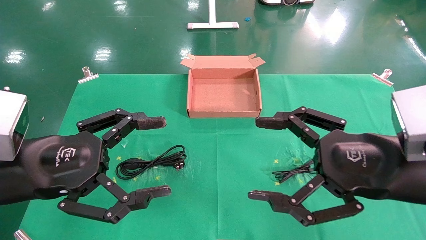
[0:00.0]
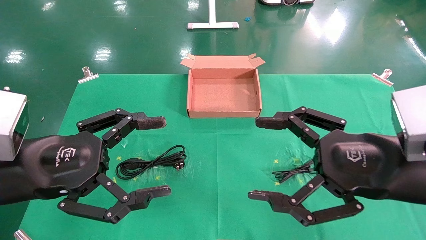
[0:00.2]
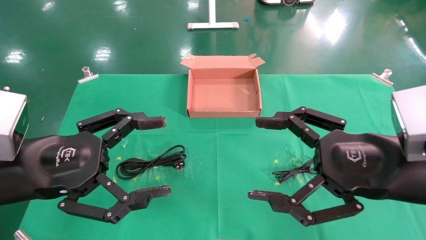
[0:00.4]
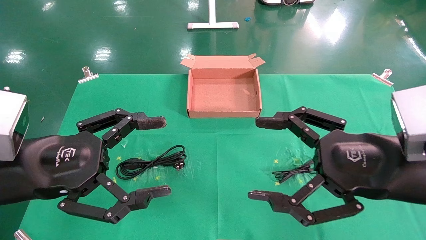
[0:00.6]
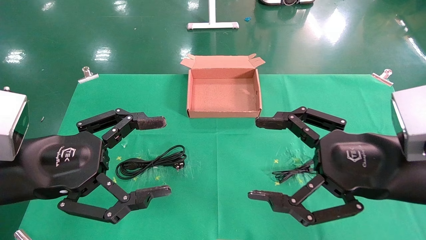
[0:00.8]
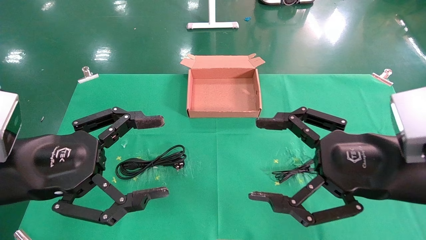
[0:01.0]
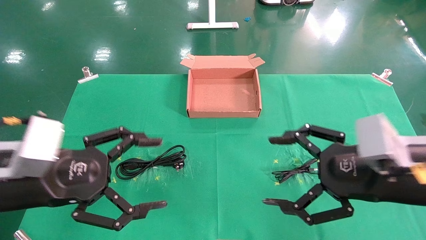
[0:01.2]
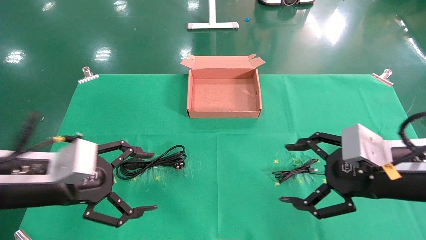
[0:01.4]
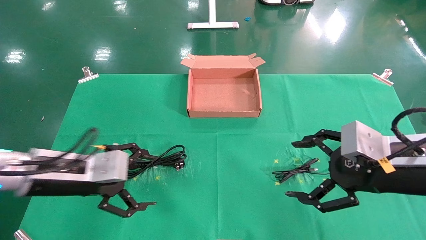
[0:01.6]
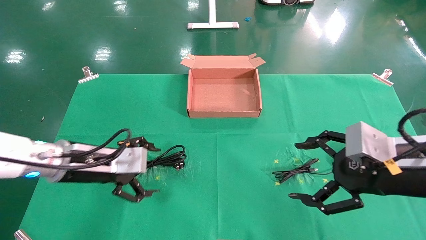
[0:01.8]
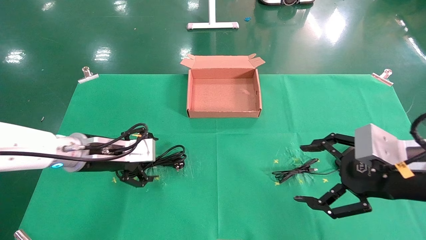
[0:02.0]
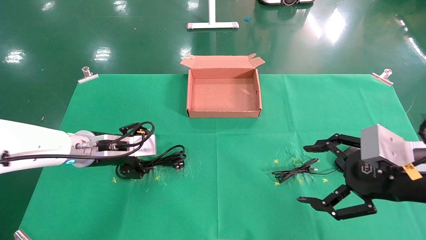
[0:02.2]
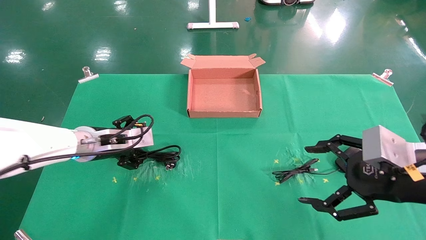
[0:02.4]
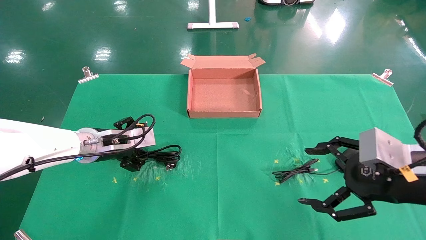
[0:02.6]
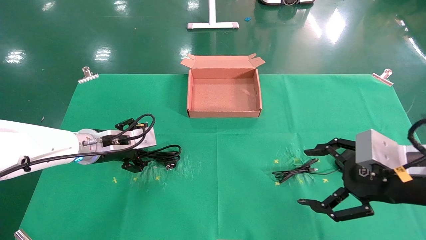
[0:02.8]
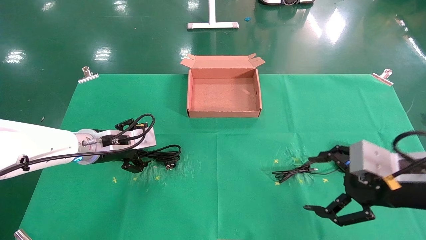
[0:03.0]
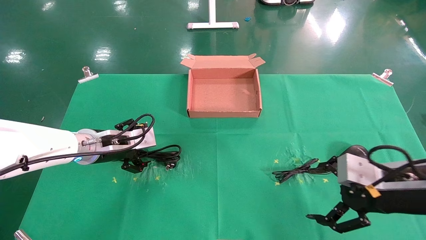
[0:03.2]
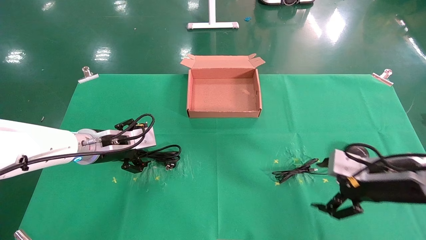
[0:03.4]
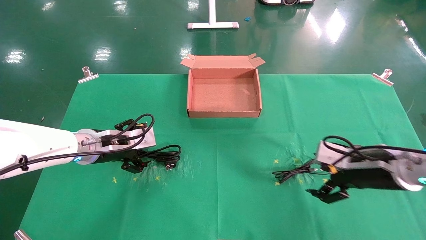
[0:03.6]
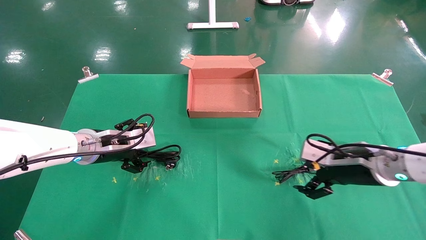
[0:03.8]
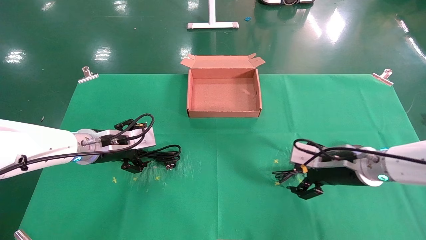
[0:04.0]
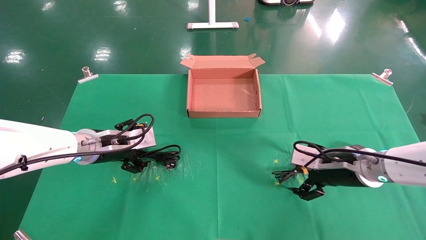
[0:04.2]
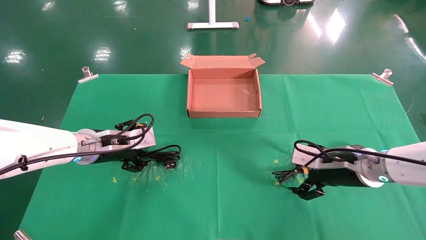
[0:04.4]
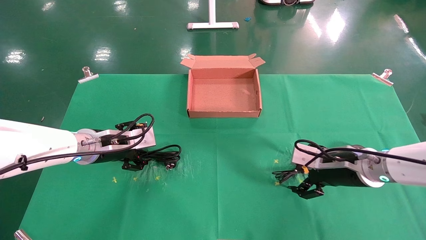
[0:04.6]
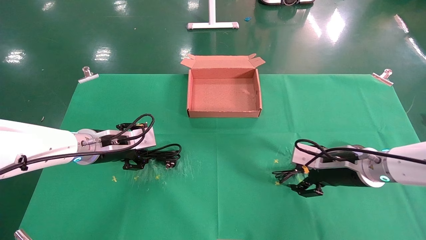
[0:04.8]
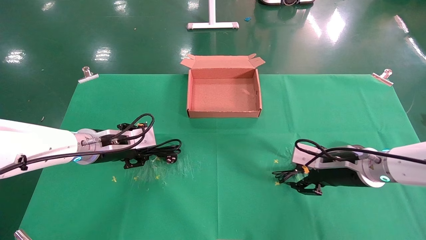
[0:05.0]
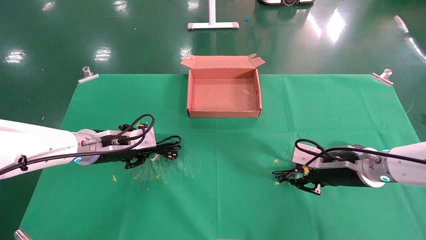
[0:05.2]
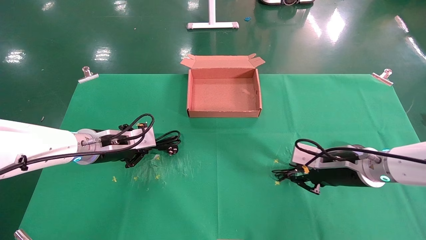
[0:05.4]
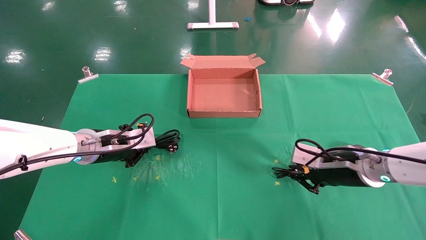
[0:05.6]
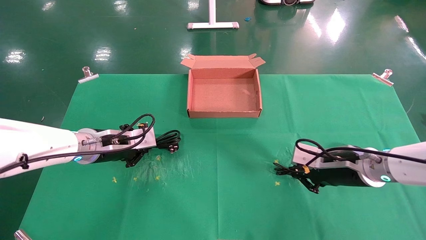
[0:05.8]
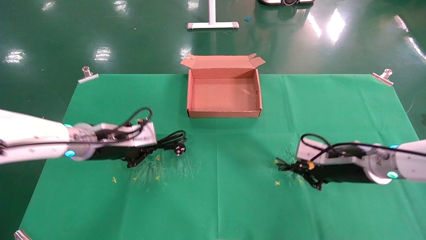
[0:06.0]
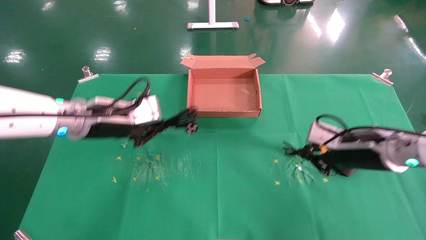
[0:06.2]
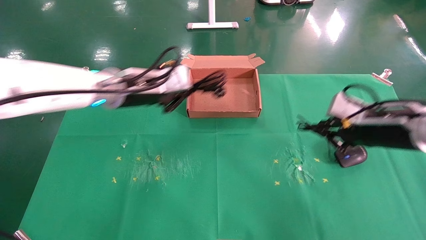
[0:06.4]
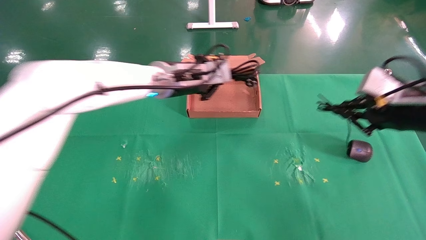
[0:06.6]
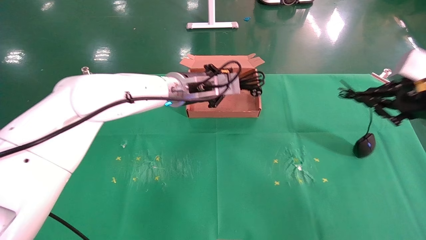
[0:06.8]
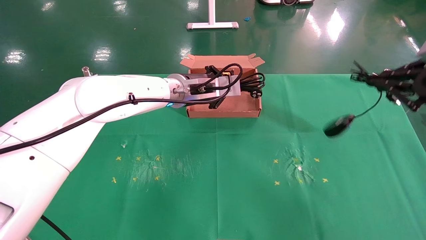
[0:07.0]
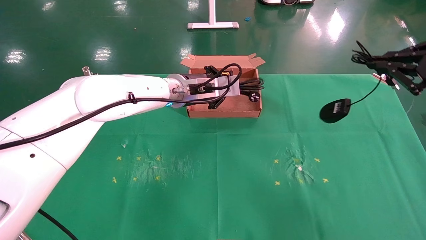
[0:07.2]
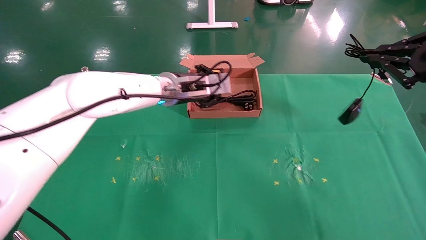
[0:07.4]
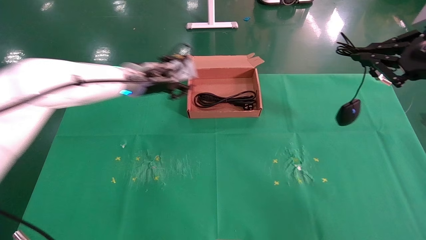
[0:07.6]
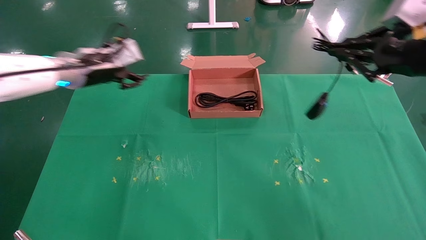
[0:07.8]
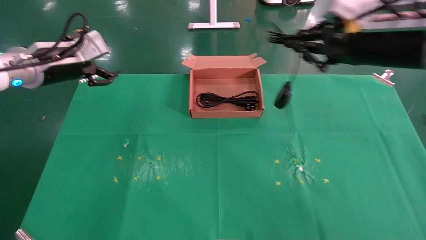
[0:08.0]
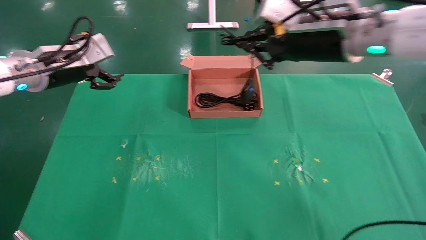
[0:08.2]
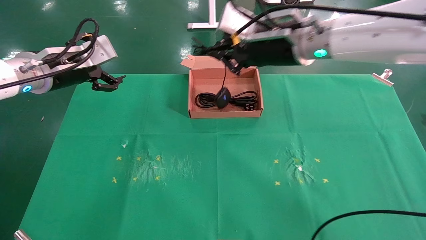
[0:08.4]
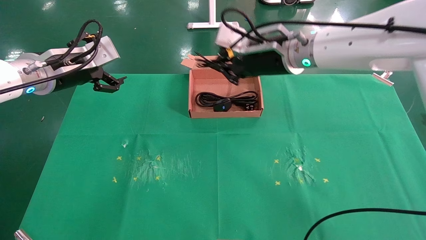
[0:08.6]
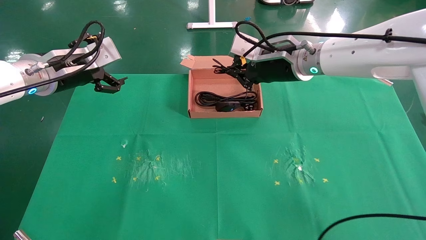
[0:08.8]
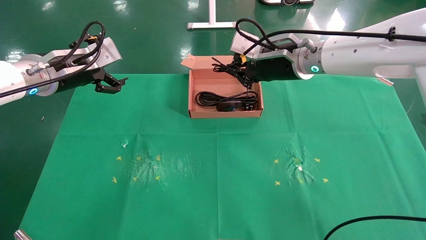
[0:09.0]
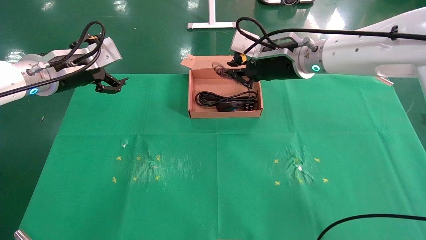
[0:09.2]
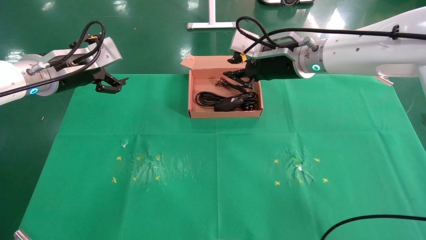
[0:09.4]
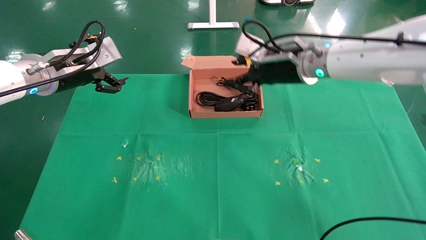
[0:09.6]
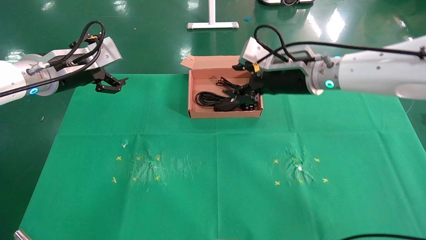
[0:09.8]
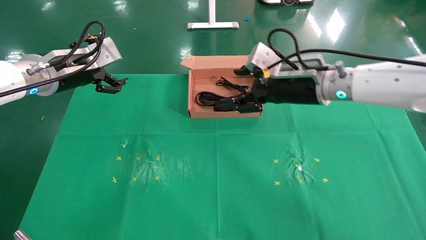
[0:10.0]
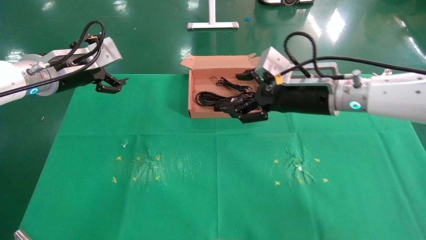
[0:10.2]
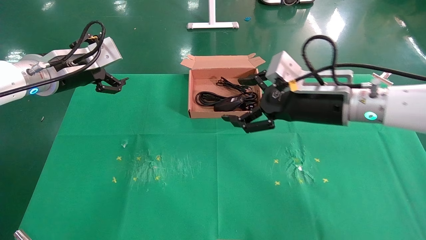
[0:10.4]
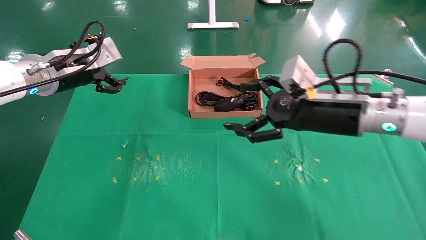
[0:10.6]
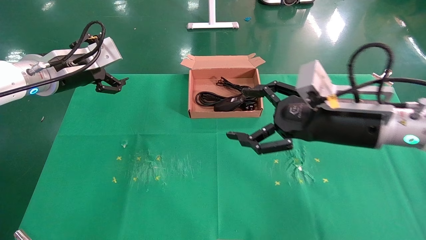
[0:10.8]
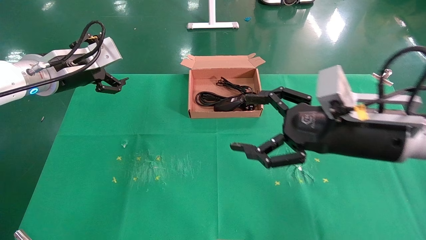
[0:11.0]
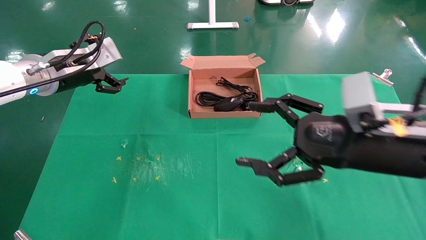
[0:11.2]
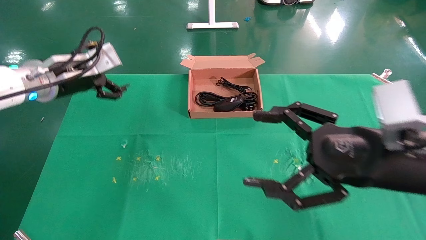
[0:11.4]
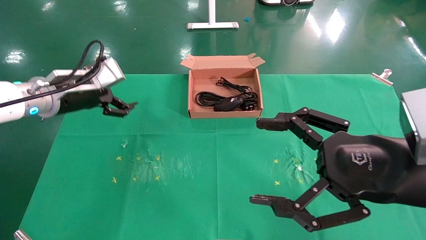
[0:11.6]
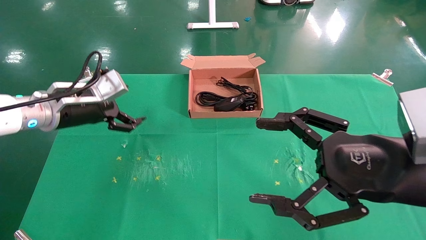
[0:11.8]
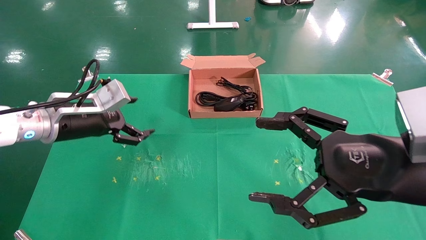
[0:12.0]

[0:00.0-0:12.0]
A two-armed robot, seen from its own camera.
Task of the whole recording: grasp data cable left put into box grasp mouse right put into box.
Step, 0:01.6 to 0:05.8: Simultaneously pick up the mouse and power cord from the accessory packaging area.
Step, 0:06.0 to 0:09.2: Place the mouse and power cord into the box.
0:00.0 to 0:01.6: The left gripper goes about 10 cm forward and downward. The right gripper moves approximately 5 cm.
0:01.6 to 0:03.0: The left gripper shifts approximately 10 cm forward.
0:03.0 to 0:04.4: The right gripper heads forward and downward, covering roughly 10 cm.
0:04.4 to 0:06.0: The right gripper closes up. Meanwhile the left gripper closes.
0:06.0 to 0:07.6: The right gripper moves upward and backward, roughly 20 cm; the left gripper heads forward and upward, covering approximately 15 cm, and travels to the right and back again, approximately 15 cm each way.
0:07.6 to 0:09.0: The left gripper is displaced to the left and backward by approximately 15 cm, and opens; the right gripper goes approximately 25 cm to the left and forward.
0:09.0 to 0:10.4: The right gripper shifts roughly 10 cm backward, downward and to the right, and opens up.
0:10.4 to 0:12.0: The left gripper goes some 10 cm downward. Meanwhile the right gripper is displaced backward by some 15 cm.

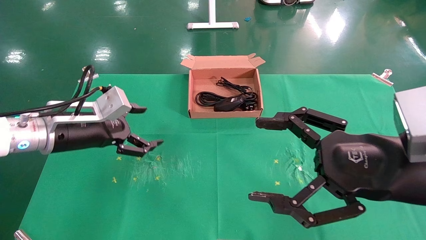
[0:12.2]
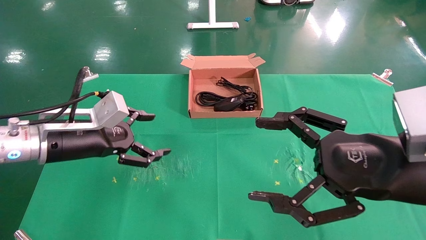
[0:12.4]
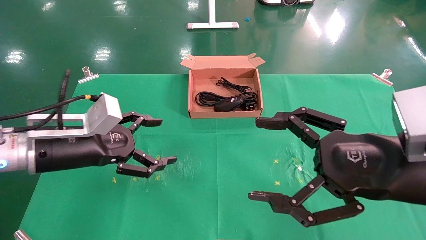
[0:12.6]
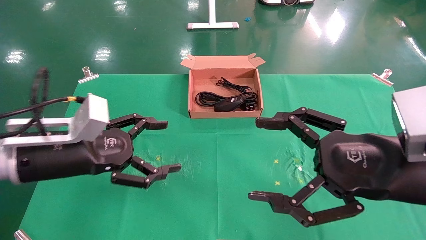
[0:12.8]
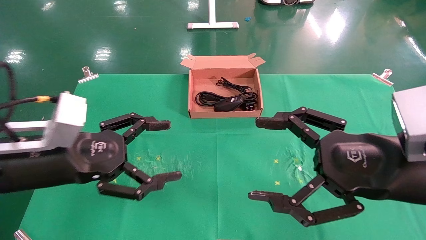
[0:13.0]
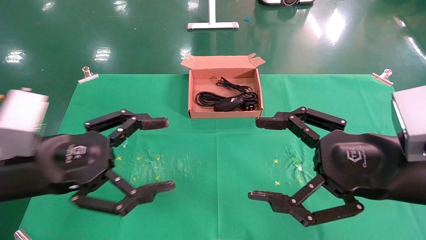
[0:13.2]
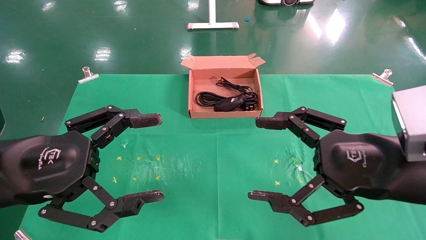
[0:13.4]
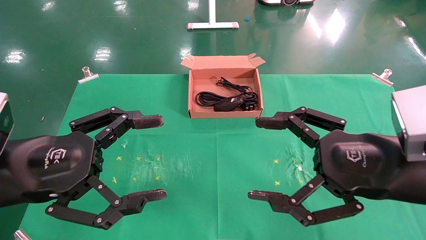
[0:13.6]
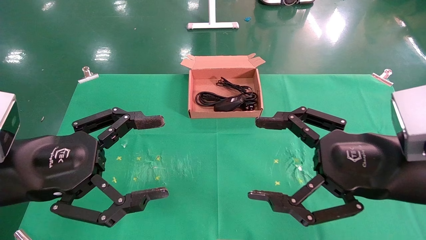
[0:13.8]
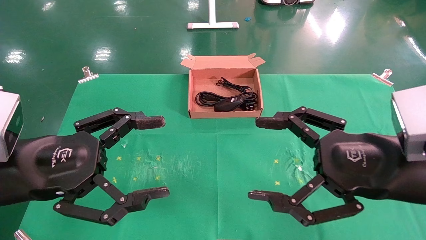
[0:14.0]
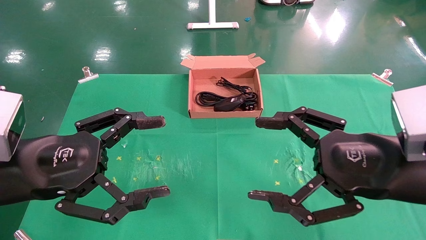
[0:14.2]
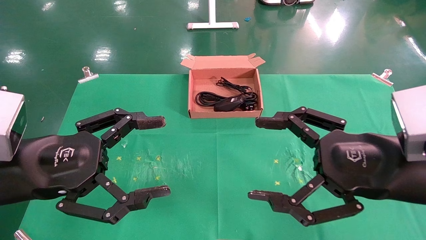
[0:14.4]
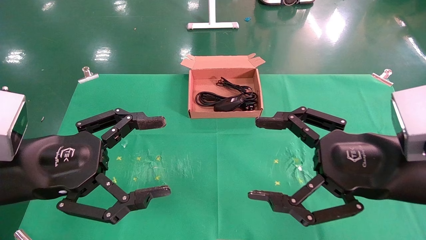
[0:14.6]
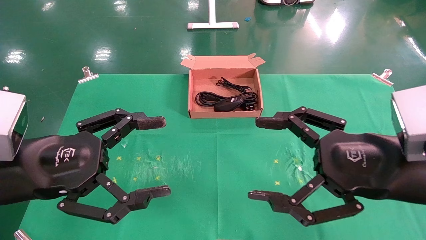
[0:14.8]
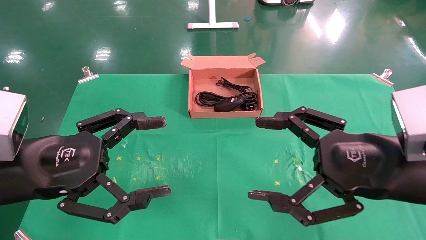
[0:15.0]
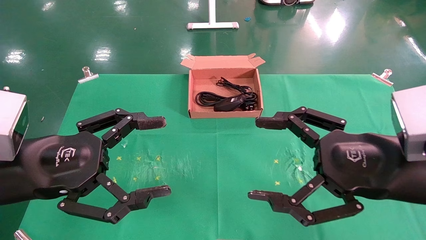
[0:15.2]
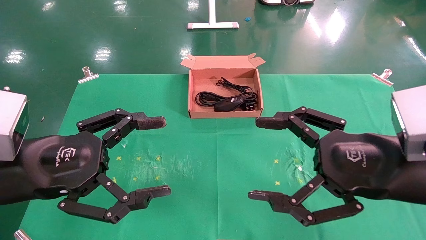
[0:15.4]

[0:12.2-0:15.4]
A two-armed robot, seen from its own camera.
Task of the whole recording: grasp data cable left put into box grasp mouse right put into box.
0:12.2 to 0:13.8: The left gripper heads backward, covering approximately 15 cm.
0:13.8 to 0:15.4: Both grippers stay put.
